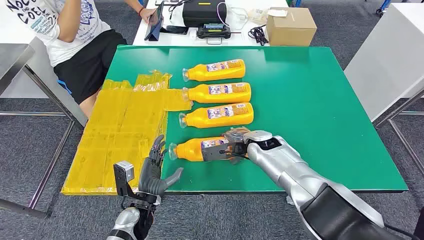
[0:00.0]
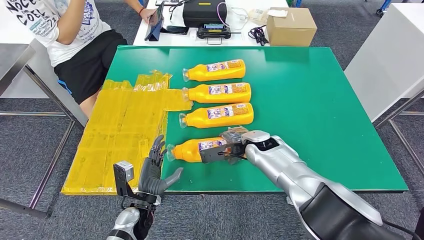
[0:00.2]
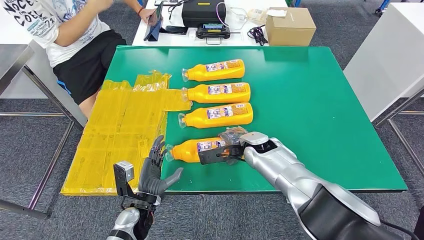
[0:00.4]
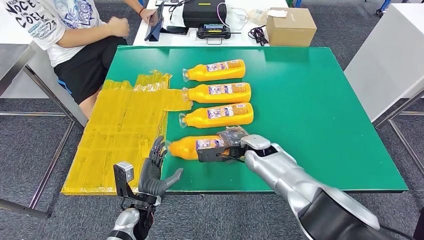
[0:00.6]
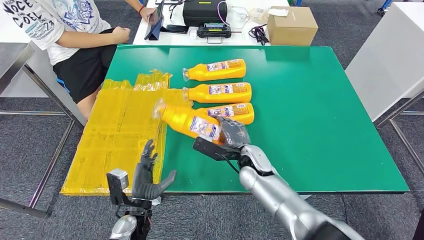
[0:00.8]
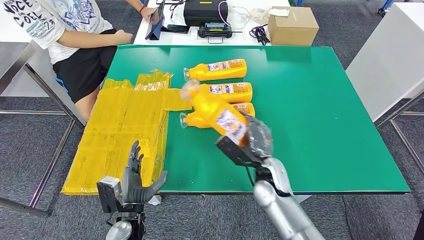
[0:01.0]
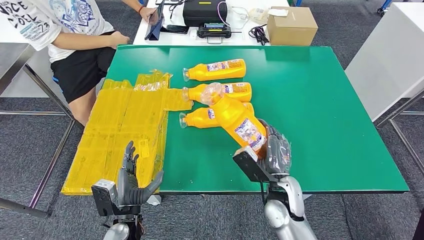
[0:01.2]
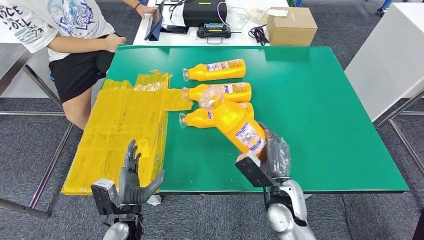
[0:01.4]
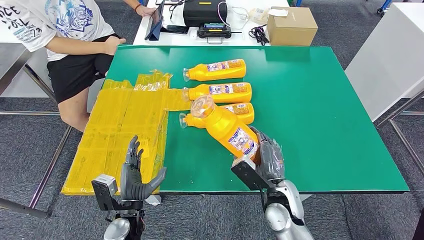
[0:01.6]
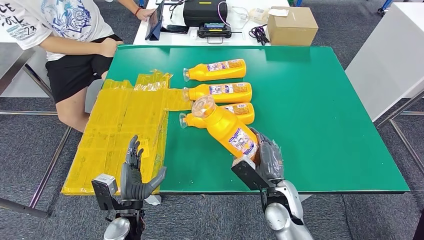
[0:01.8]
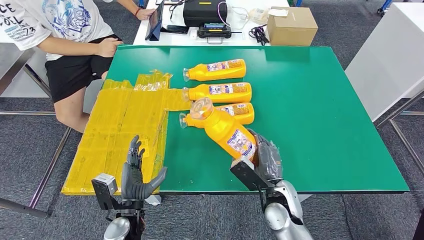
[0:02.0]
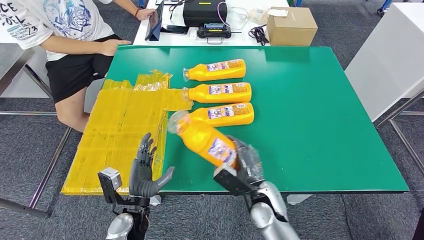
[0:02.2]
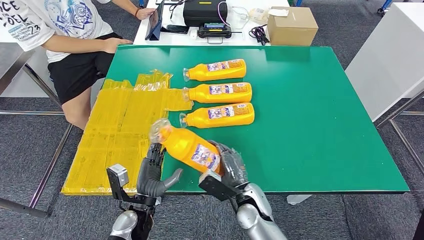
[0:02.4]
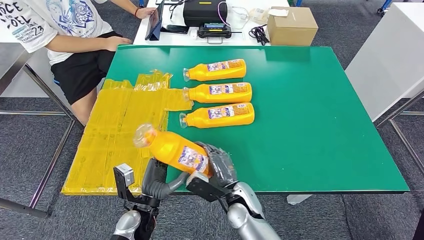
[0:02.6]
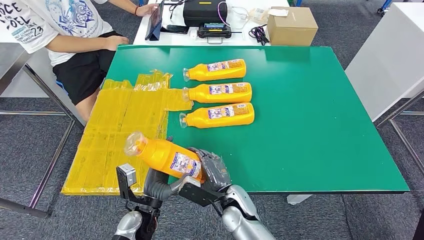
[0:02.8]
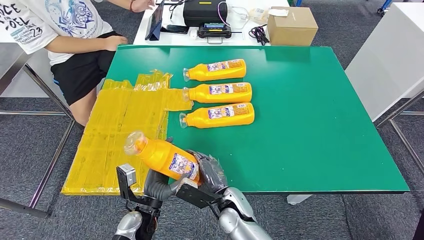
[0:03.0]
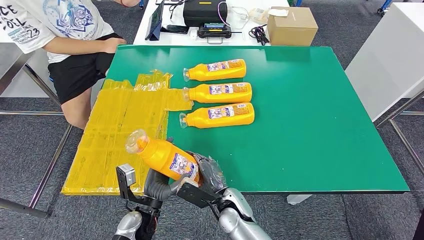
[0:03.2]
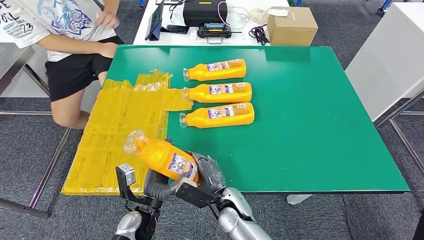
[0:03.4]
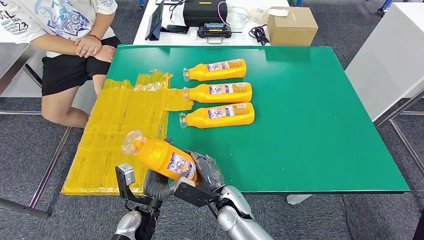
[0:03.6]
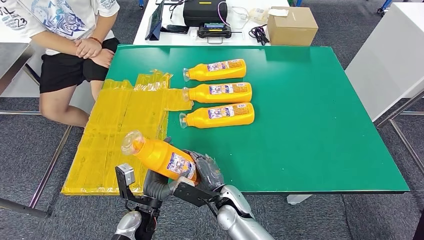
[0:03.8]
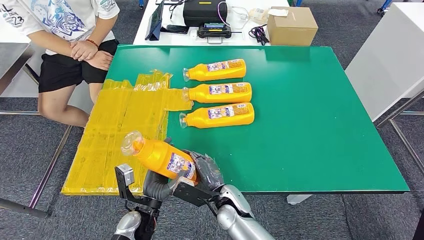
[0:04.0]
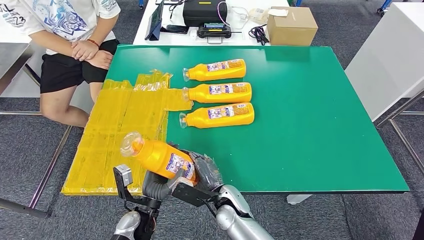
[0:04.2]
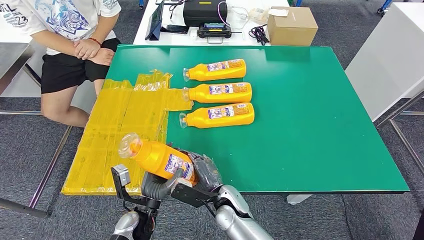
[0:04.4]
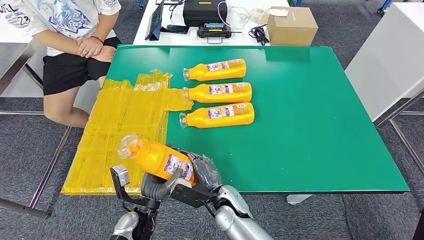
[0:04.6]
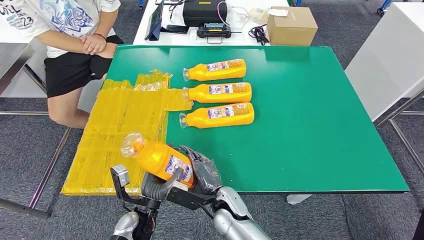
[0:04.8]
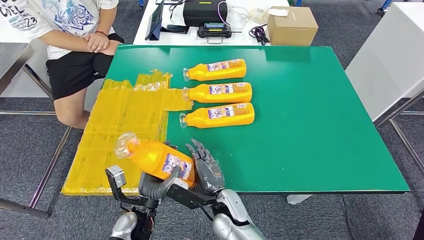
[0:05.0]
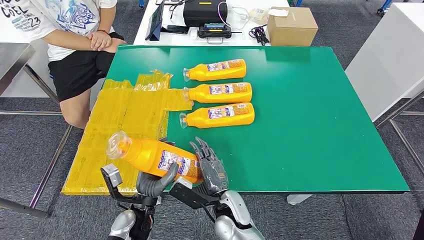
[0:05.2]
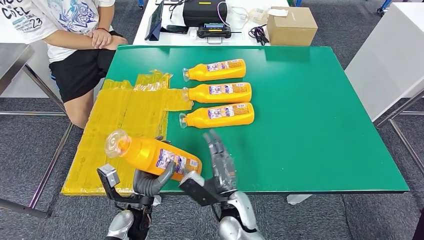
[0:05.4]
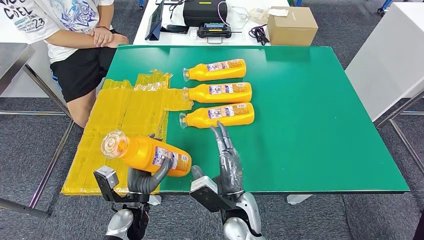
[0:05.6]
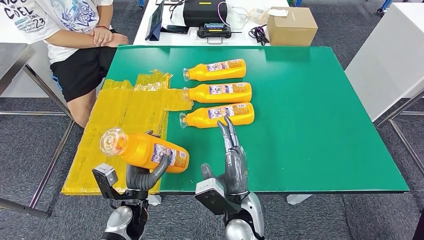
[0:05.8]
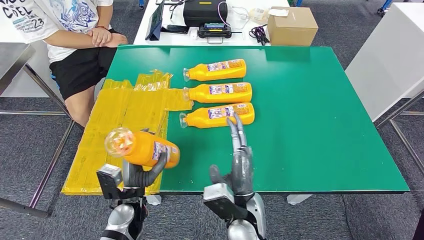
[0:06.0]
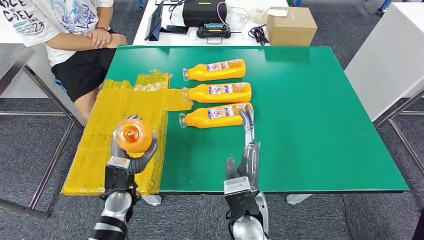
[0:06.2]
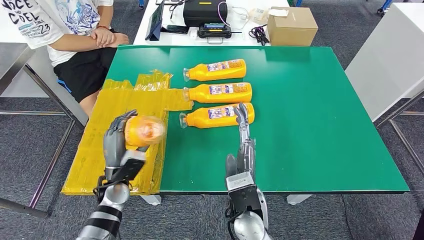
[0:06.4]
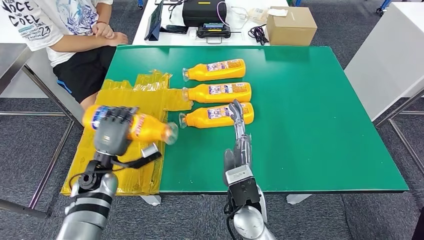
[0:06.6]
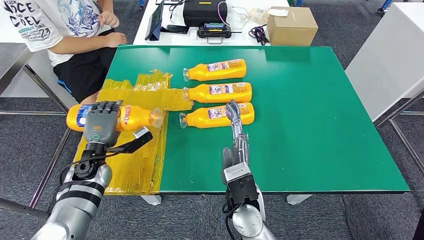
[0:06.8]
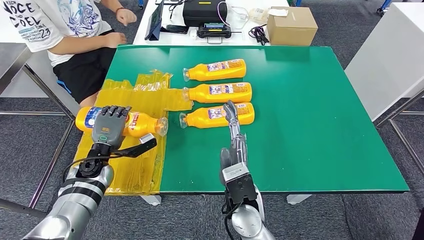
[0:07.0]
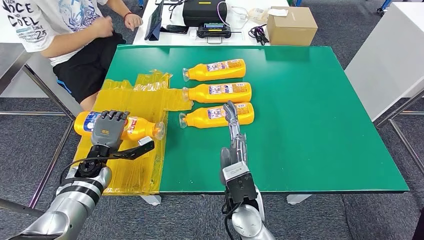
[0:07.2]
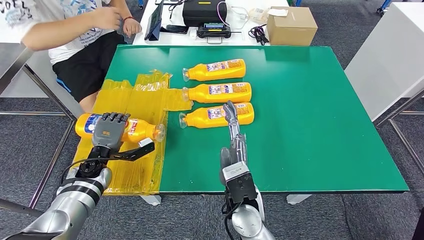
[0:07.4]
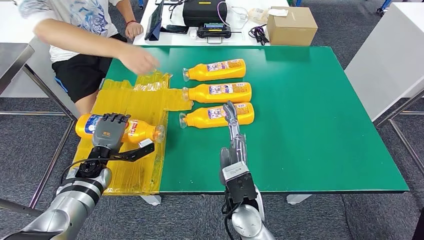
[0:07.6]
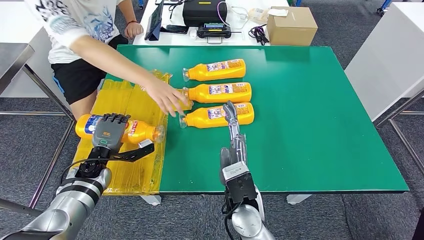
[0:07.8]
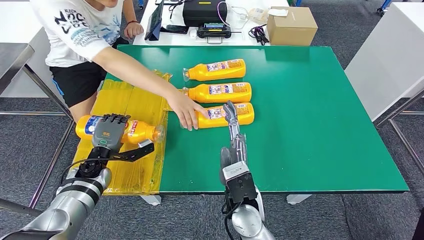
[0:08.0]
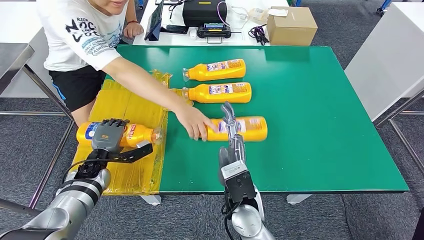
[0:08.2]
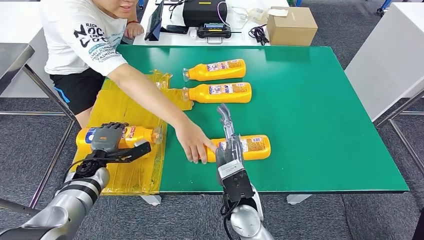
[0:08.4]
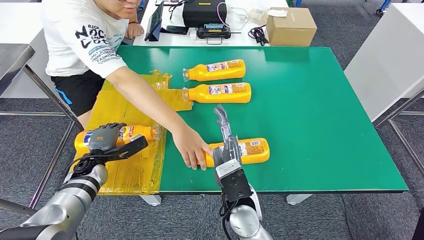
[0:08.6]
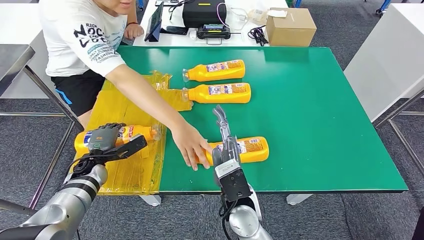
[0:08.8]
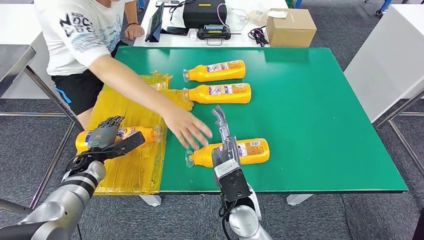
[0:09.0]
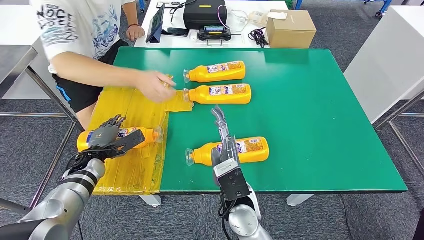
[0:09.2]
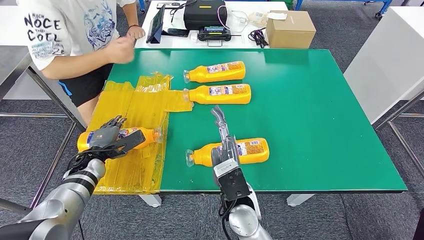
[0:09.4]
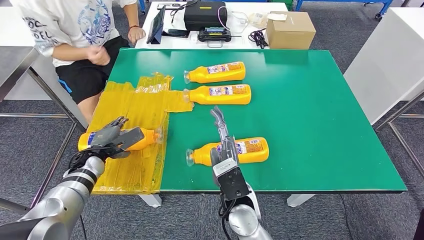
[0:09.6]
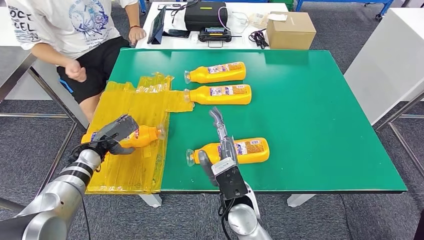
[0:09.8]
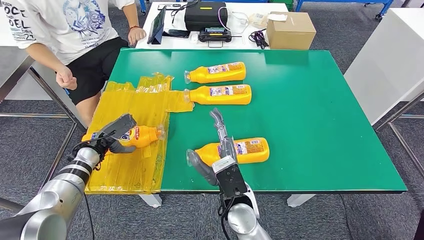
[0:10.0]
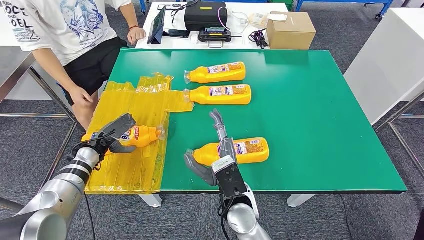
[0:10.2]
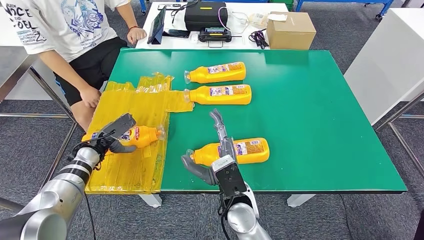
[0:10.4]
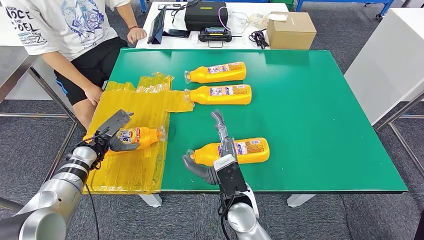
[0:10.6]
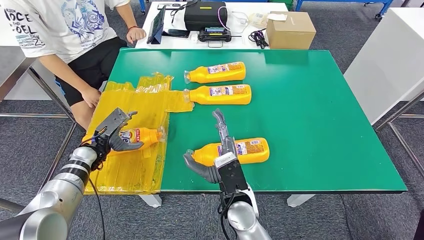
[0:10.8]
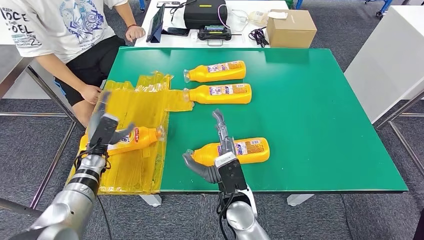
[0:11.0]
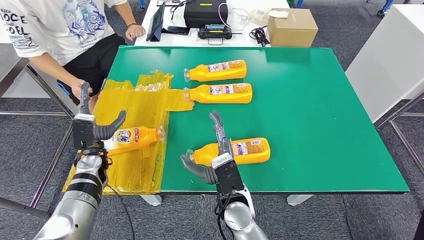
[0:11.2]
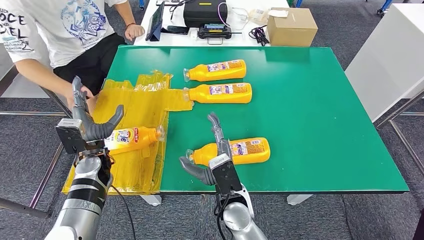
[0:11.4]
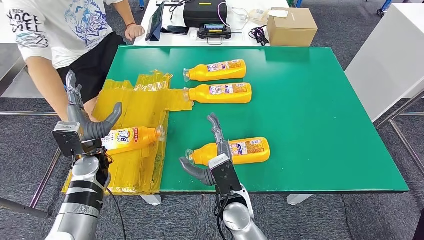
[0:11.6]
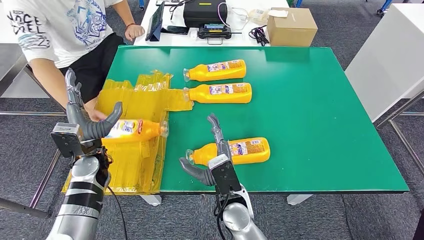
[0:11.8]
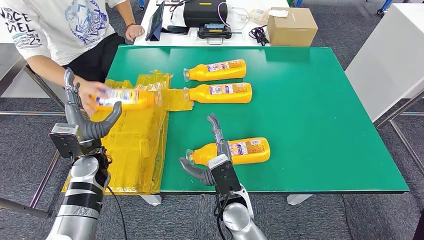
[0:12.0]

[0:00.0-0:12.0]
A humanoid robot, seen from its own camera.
Step, 0:00.0 to 0:03.6: Take the fast-moving consumer goods bottle from the table.
Step, 0:03.8 to 0:09.6: Flip the fast-moving consumer goods bottle to the front side.
0:01.6 to 0:03.0: The right hand travels to the left and downward by roughly 10 cm.
0:03.0 to 0:04.4: The hands stay close to where they were, moving slightly.
0:04.4 to 0:06.0: The right hand moves upward, about 10 cm.

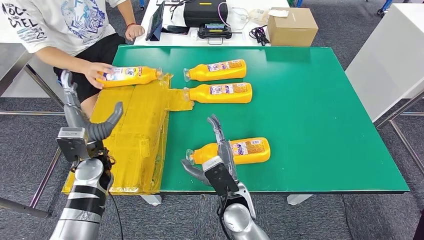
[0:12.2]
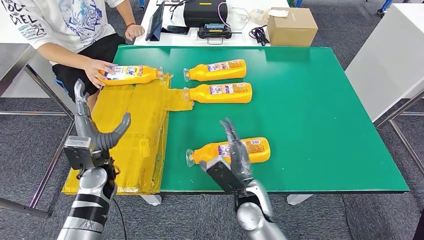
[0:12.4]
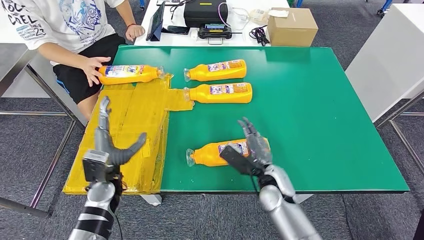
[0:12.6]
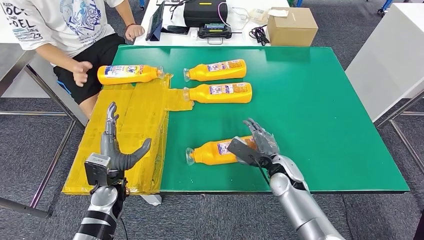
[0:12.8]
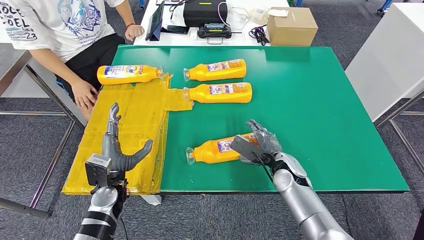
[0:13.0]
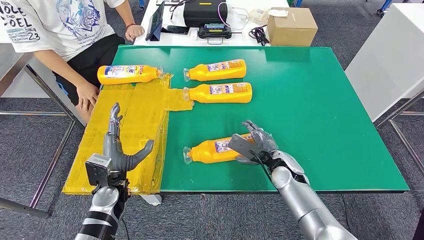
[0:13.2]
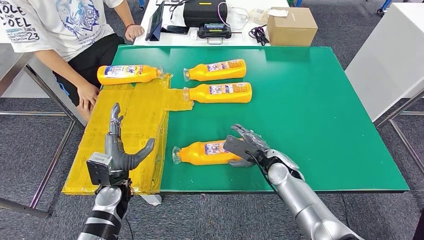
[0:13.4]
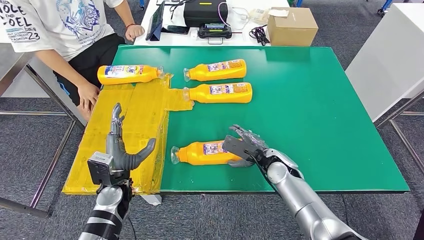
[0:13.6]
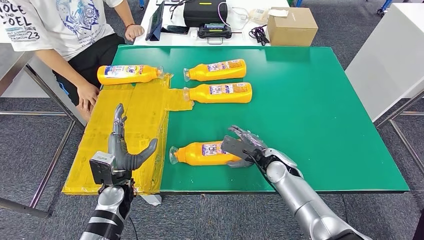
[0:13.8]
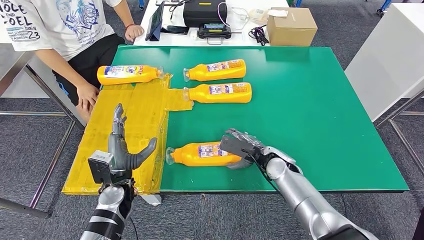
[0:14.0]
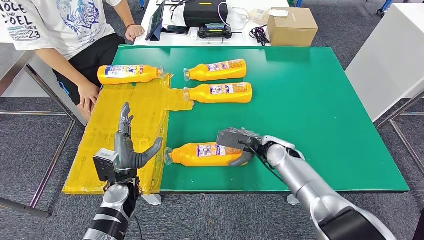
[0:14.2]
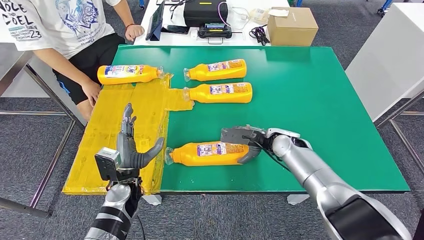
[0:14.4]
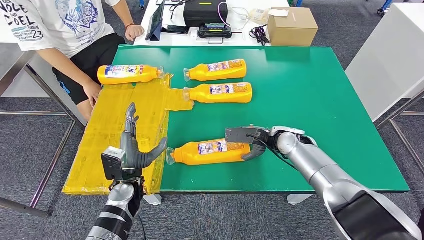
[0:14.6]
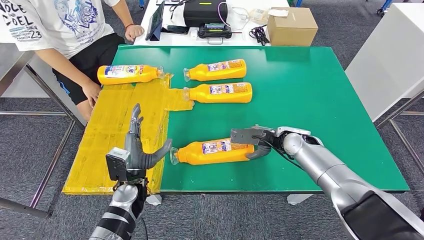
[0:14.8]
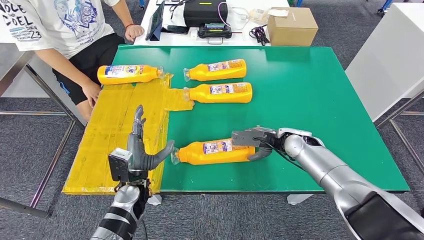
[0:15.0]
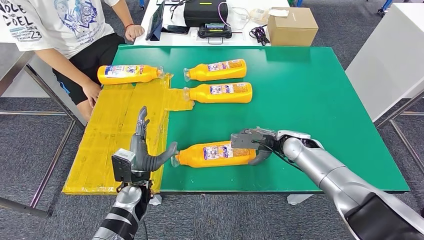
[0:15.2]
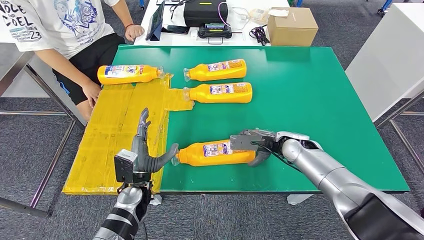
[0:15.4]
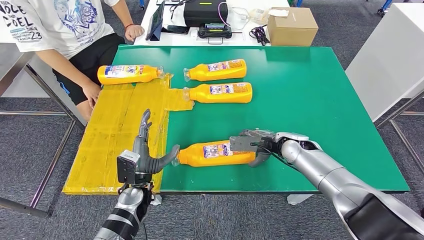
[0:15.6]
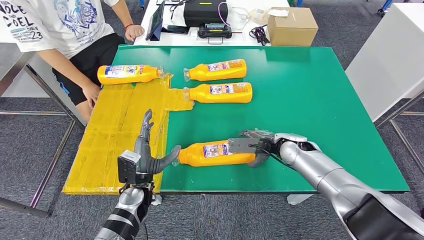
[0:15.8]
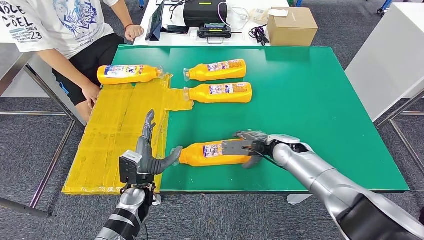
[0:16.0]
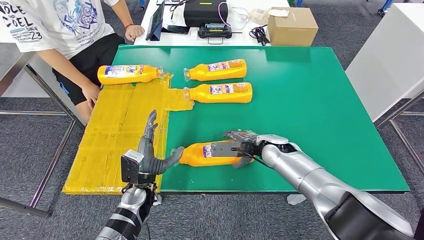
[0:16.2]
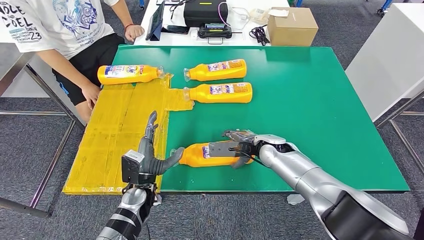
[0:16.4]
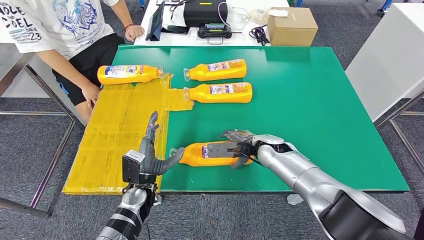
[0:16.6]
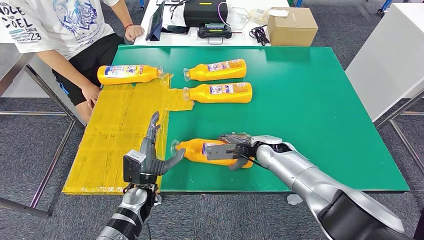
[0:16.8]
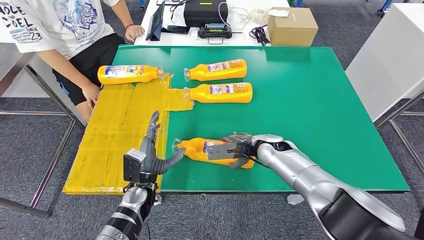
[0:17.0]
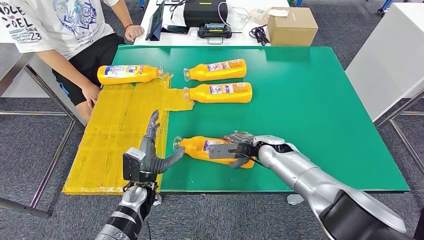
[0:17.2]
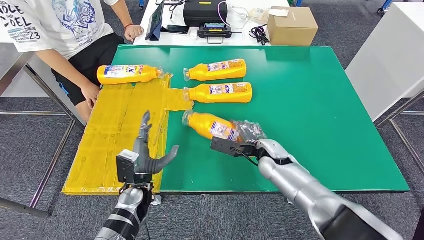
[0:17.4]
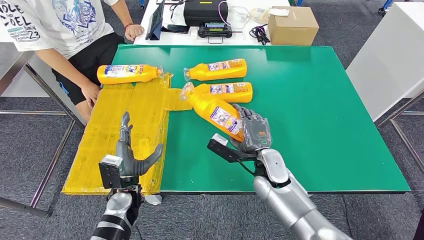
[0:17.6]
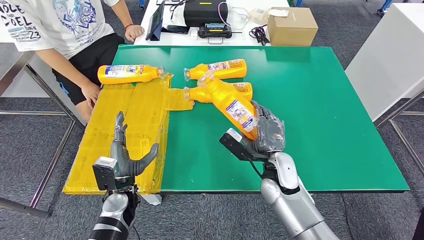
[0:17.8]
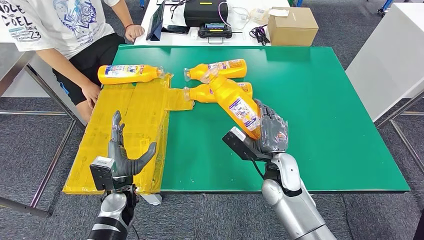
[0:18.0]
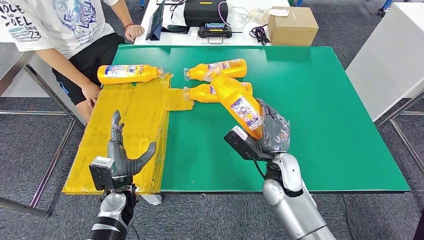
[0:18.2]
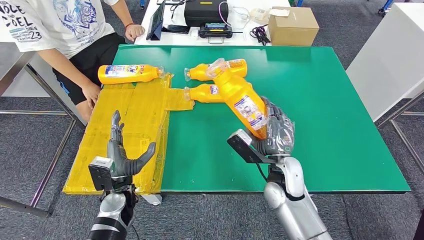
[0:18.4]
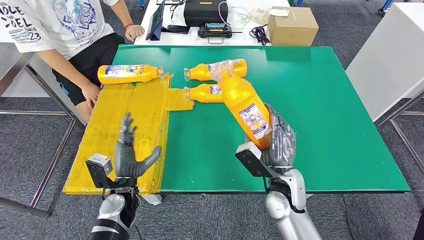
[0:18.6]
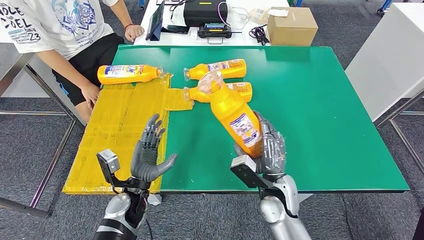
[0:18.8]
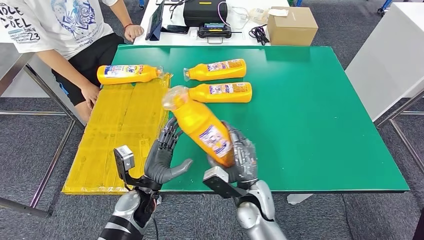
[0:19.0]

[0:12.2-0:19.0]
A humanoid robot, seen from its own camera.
Step, 0:13.6 to 0:18.0: Pick up the fast-moving consumer goods bottle from the table.
0:13.6 to 0:15.0: The right hand goes some 5 cm to the right.
0:15.0 to 0:16.2: The right hand moves to the left, roughly 5 cm.
0:16.2 to 0:17.6: The right hand is displaced backward by some 5 cm.
0:17.6 to 0:19.0: The right hand moves backward, roughly 5 cm. The left hand shifts by some 5 cm.
